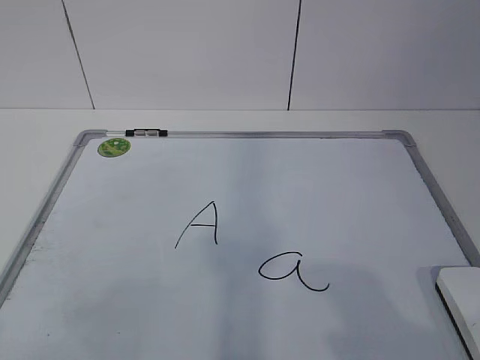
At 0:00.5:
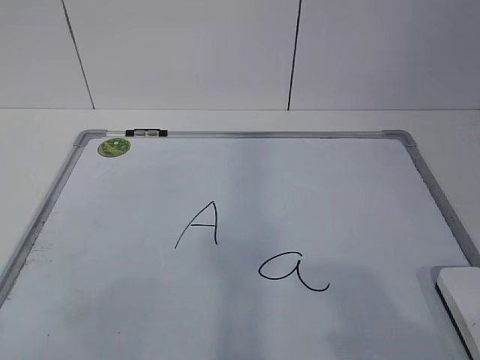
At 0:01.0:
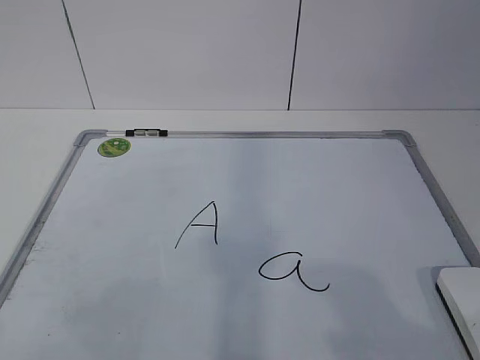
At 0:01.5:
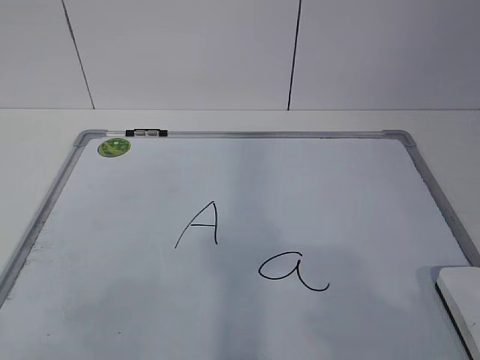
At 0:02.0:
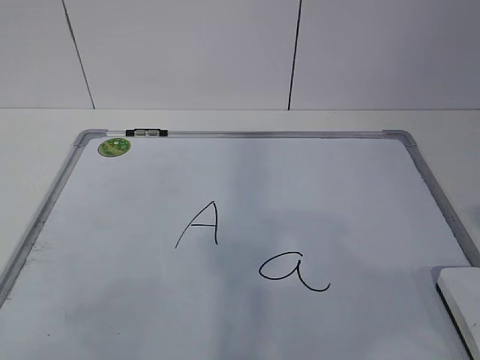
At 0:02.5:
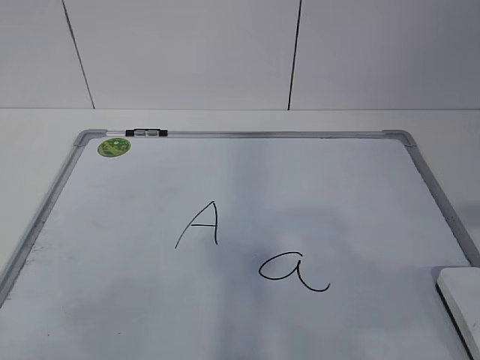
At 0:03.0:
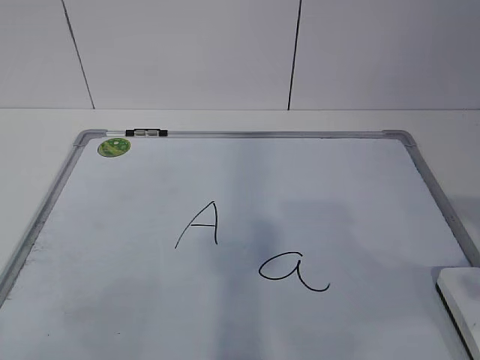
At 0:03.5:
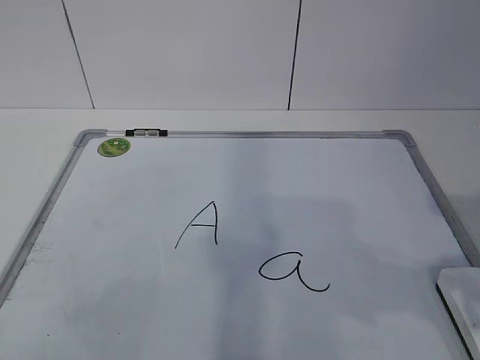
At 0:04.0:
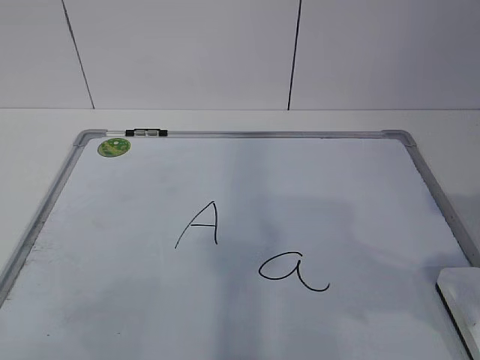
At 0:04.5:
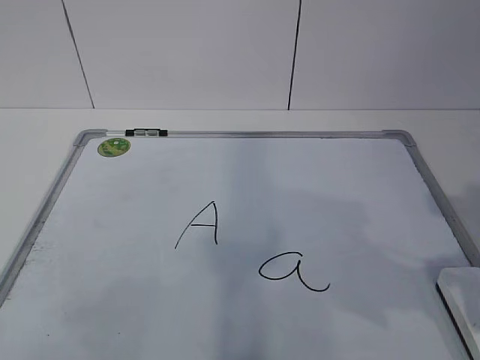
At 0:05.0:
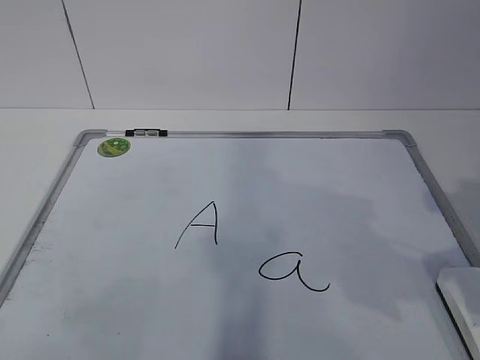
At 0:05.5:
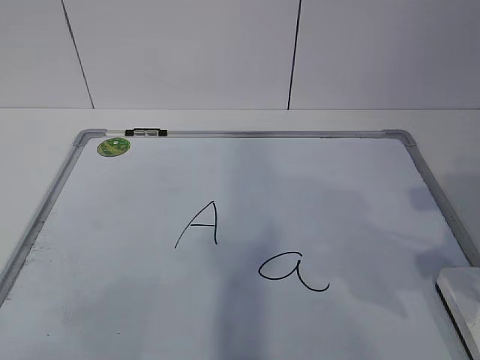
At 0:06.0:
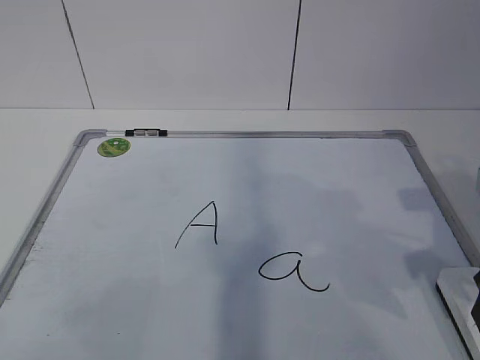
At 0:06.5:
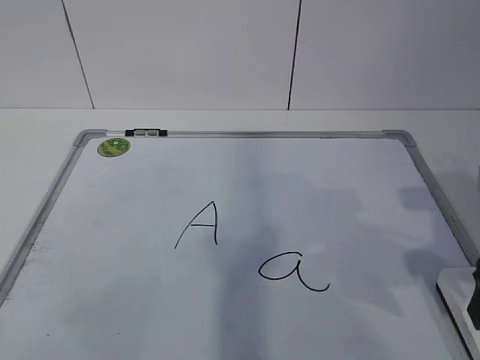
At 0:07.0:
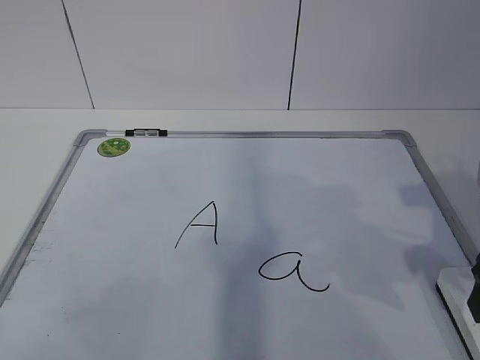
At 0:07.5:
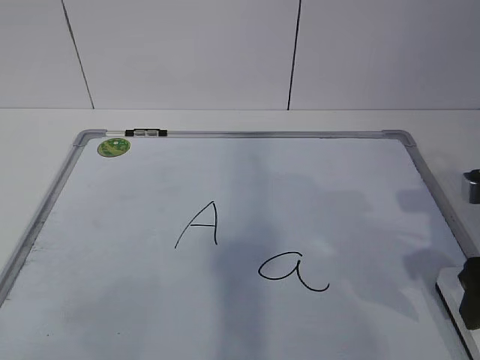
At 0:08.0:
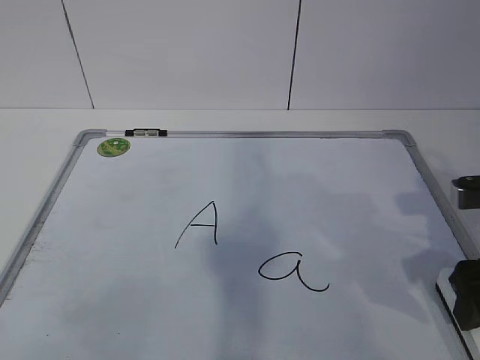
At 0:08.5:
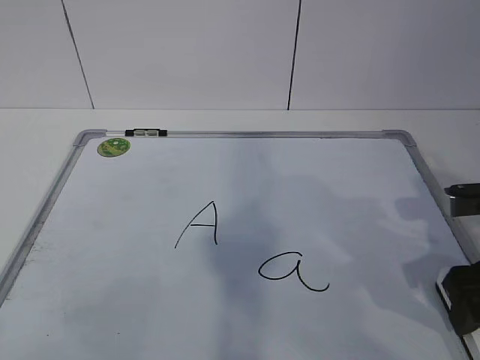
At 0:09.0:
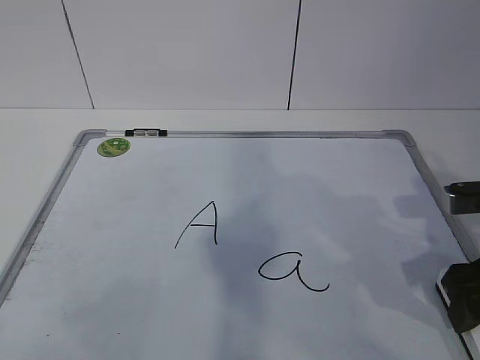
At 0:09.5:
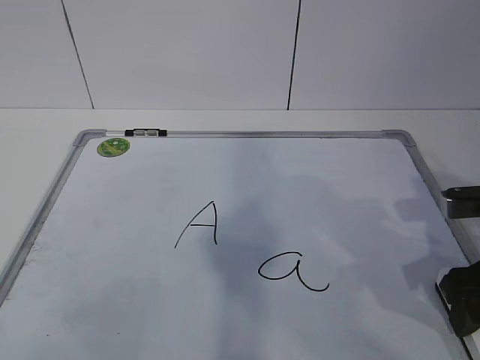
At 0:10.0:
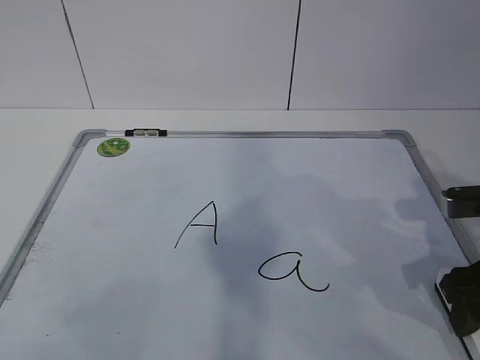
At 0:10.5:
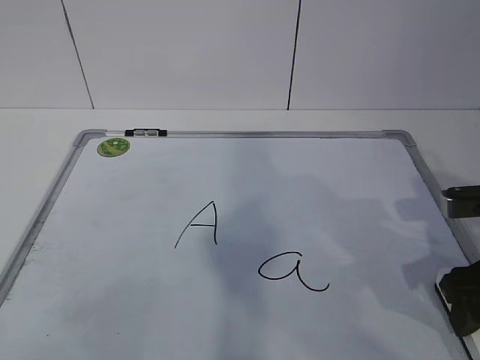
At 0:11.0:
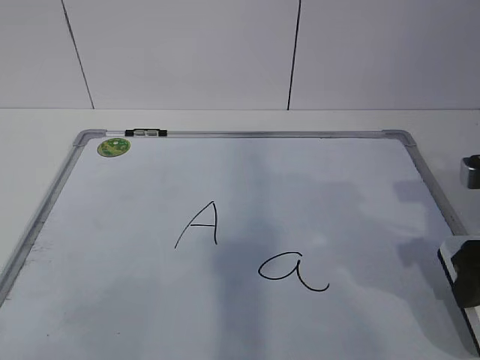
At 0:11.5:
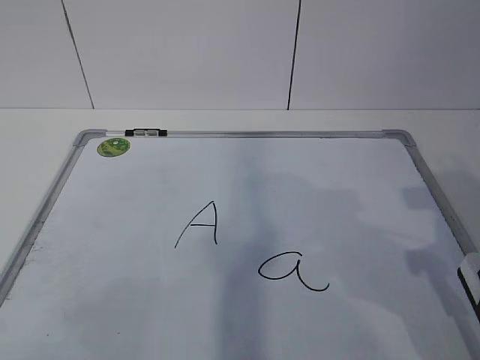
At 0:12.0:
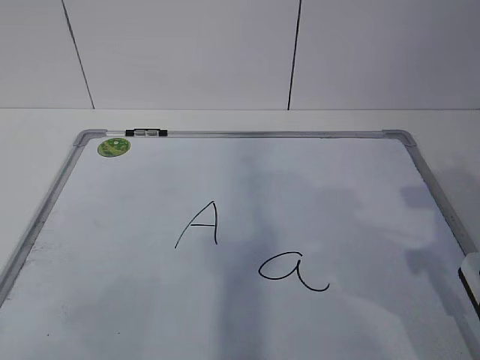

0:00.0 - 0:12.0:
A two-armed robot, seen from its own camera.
Task of the whole recording: pick up the eraser on the blackboard and erase the letter "a".
0:06.0 - 0:10.0: The grippers stay close to where they were, moving slightly.
0:10.0 - 0:12.0: The right gripper travels upward by about 5 cm.

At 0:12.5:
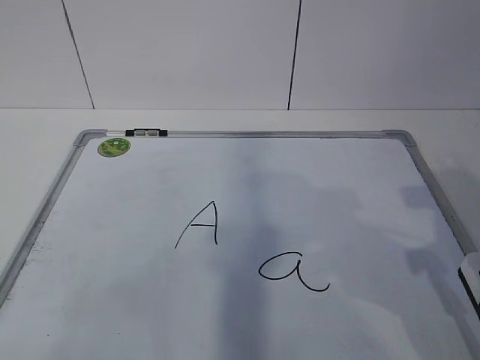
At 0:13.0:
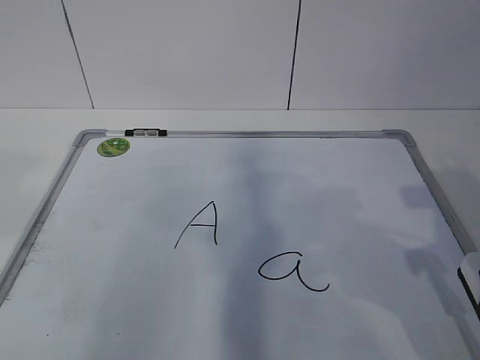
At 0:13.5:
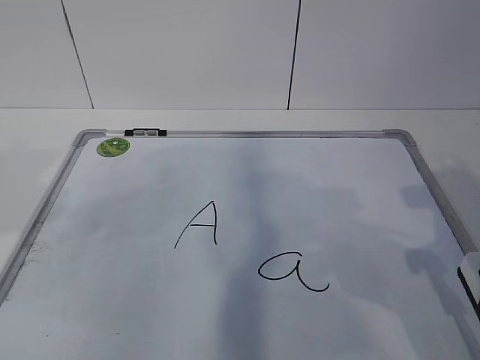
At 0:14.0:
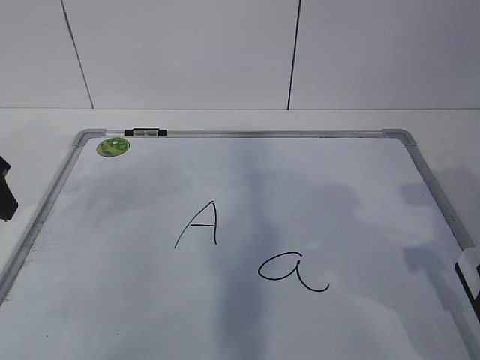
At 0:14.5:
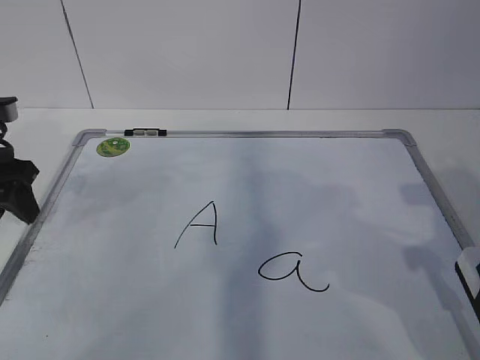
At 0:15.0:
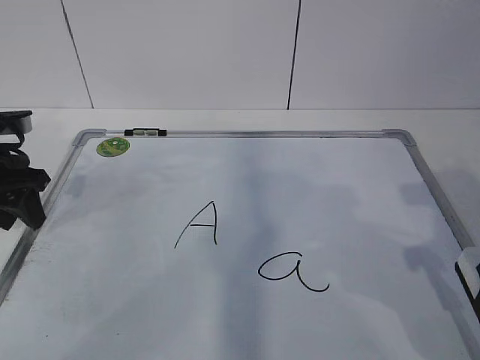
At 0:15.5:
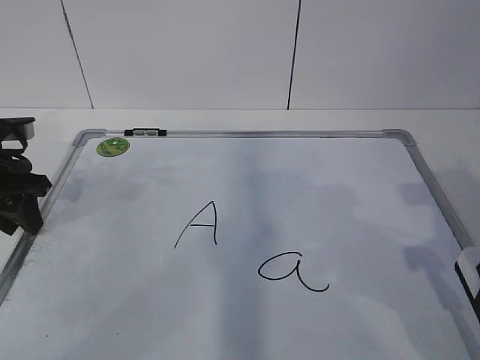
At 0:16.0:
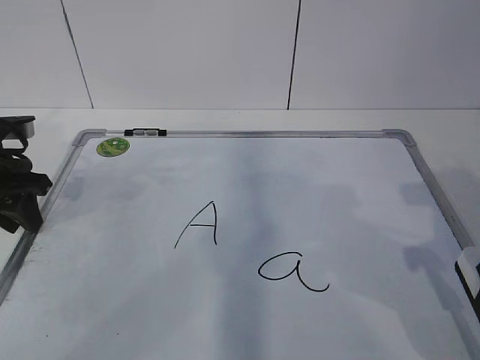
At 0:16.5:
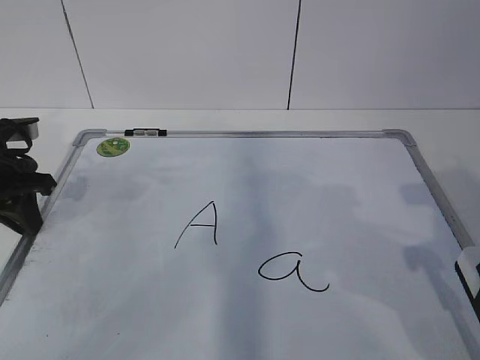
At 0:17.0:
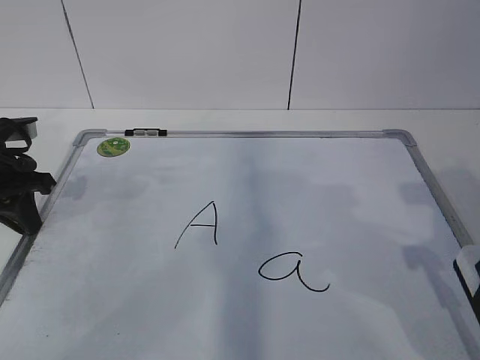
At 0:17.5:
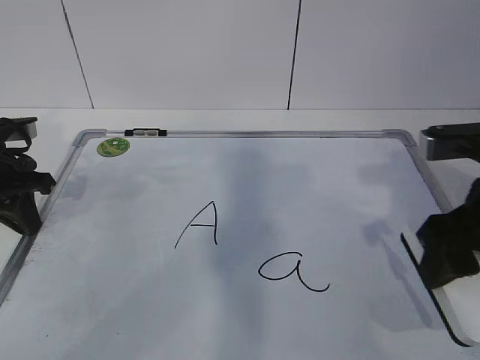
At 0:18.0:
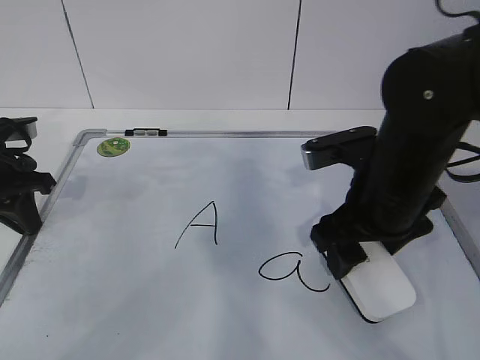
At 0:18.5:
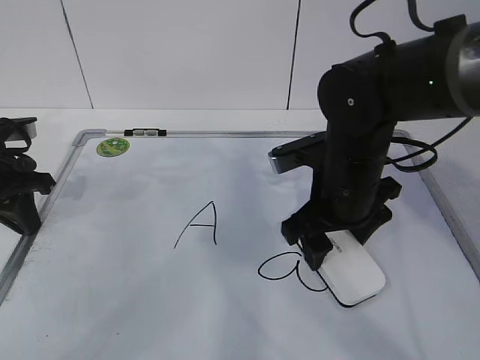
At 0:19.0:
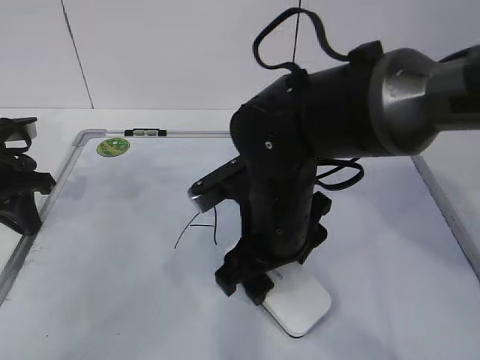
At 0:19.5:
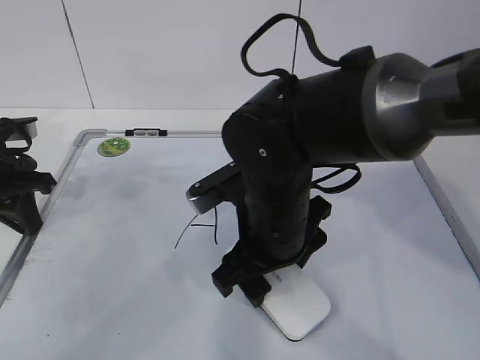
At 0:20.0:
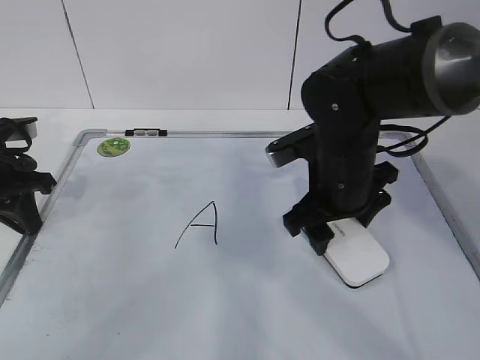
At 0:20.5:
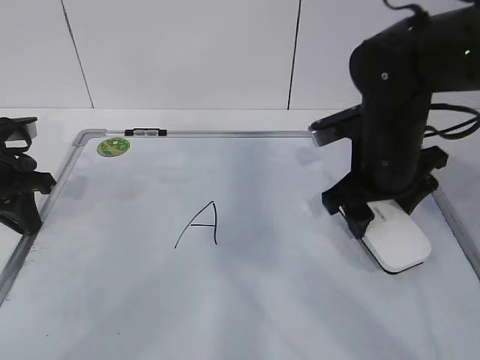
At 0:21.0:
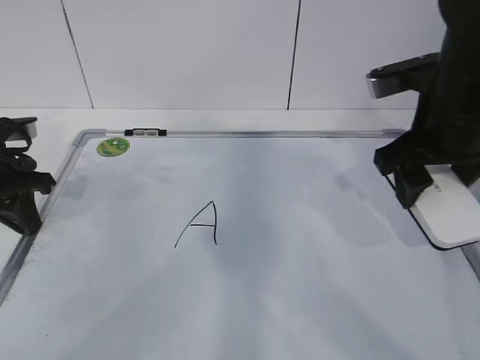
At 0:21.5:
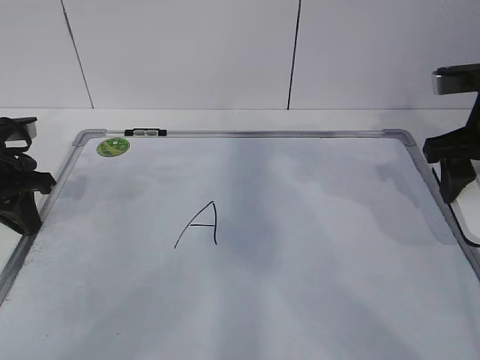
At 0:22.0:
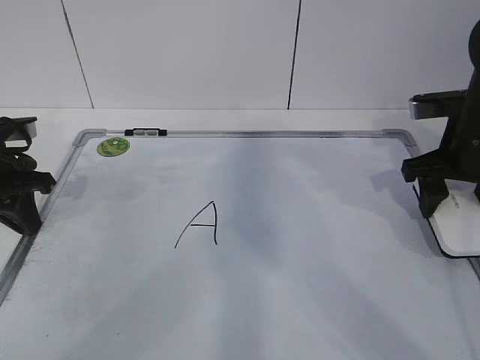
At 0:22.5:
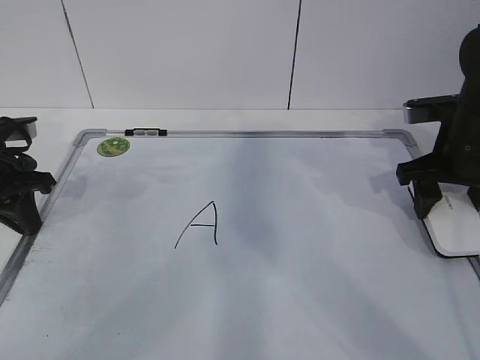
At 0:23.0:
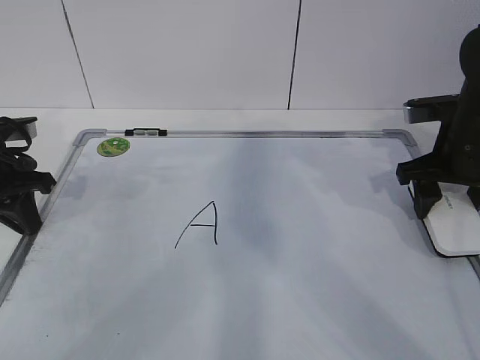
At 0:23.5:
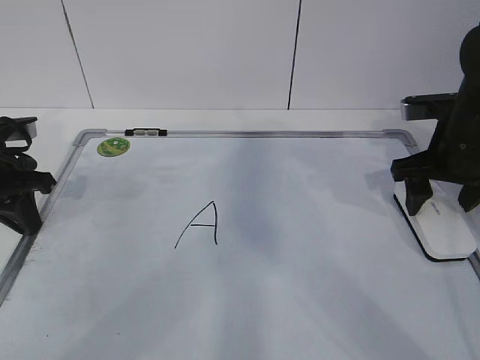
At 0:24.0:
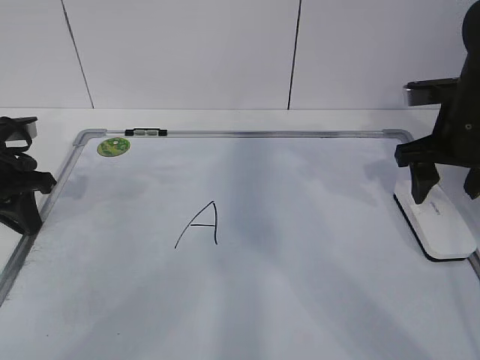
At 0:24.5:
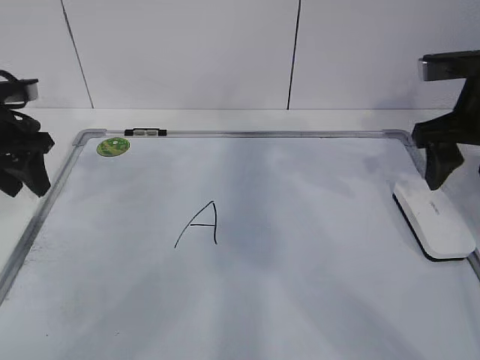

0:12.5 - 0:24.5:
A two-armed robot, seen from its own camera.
Task of the whole recording: pick up the eraser on the blackboard and erase the letter "a".
Step, 0:17.0 - 0:19.5: Put down the eraser with your right hand.
0:12.5 - 0:14.5: The left gripper moves forward, about 35 cm, and opens.
0:14.5 - 0:16.5: The left gripper closes.
0:16.5 - 0:18.5: The right gripper heads to the left and forward, covering roughly 20 cm.
0:20.5 - 0:22.5: The right gripper heads to the right, covering roughly 10 cm.
0:22.5 - 0:24.5: The right gripper is displaced upward by approximately 5 cm, while the left gripper changes place by about 5 cm, and opens.

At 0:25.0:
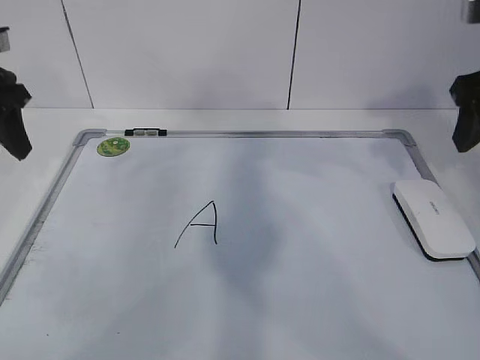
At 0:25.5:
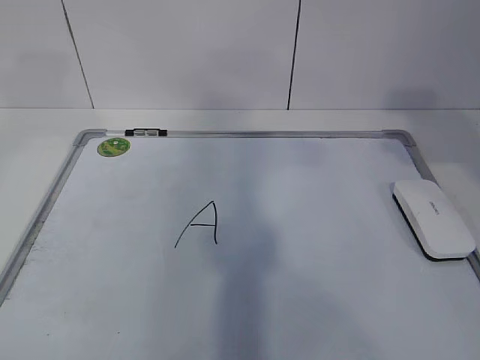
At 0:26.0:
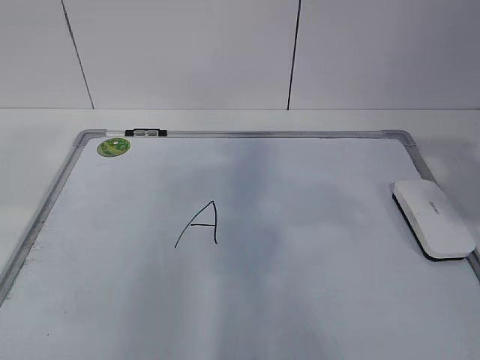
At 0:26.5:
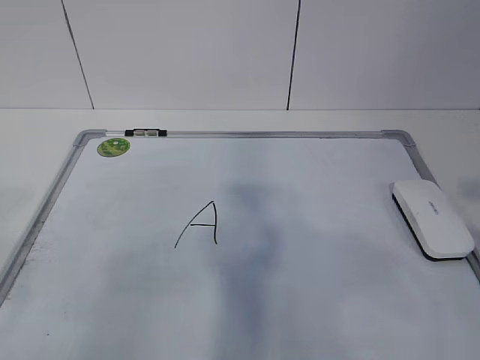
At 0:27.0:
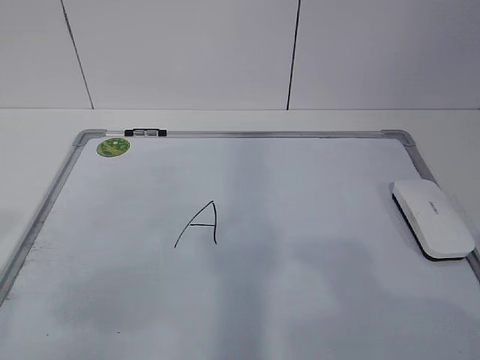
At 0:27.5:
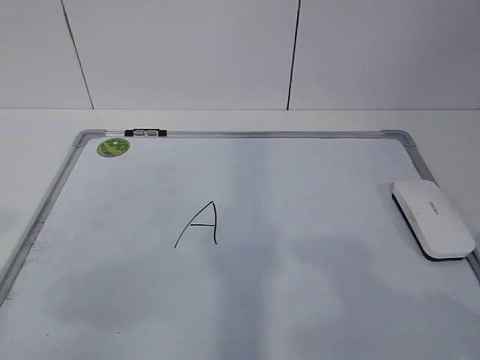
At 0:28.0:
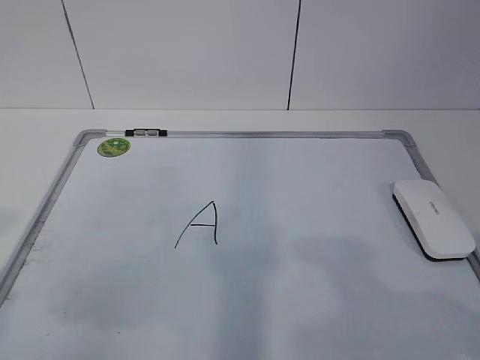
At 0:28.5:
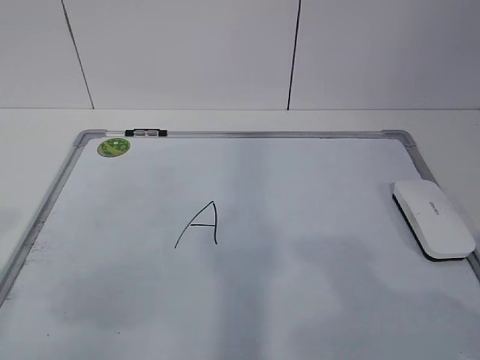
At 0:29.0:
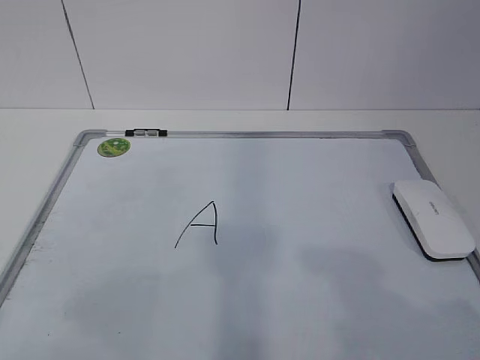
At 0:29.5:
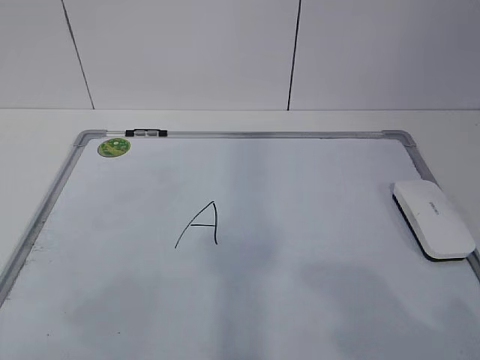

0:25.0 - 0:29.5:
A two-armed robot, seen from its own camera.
Task of the whole recording: pick up the eraser on the blackboard and erase the letter "a".
0:25.0 - 0:27.0: Both grippers travel together backward, approximately 30 cm.
